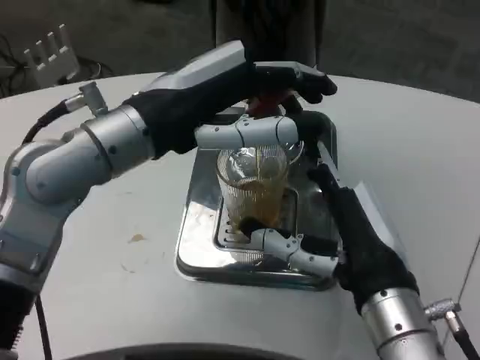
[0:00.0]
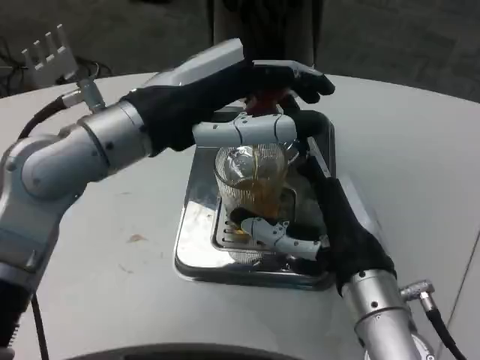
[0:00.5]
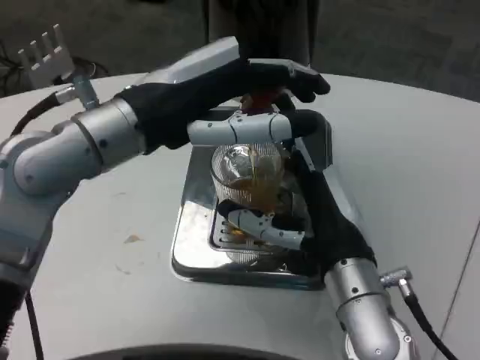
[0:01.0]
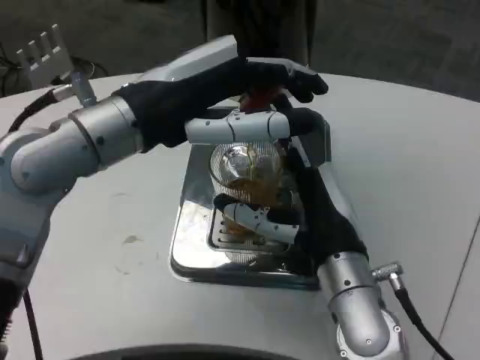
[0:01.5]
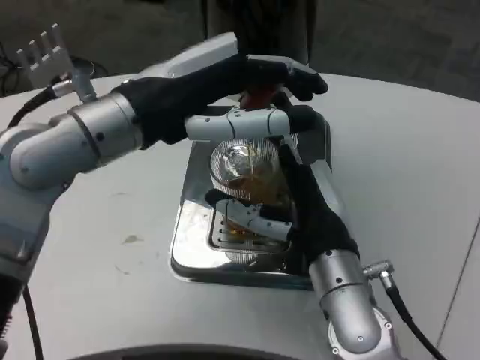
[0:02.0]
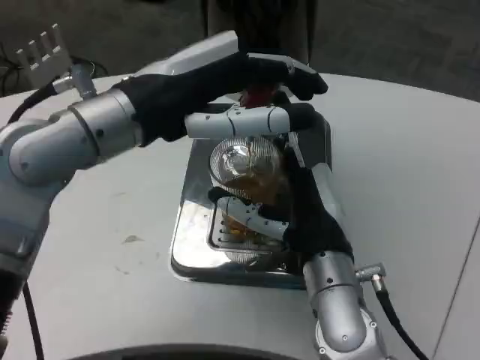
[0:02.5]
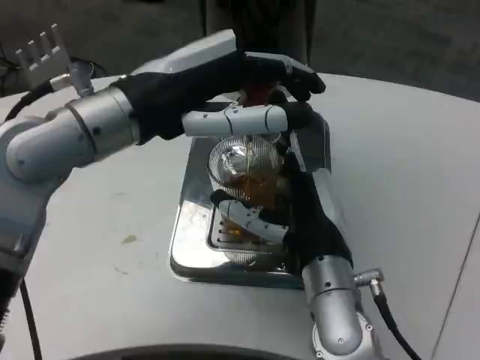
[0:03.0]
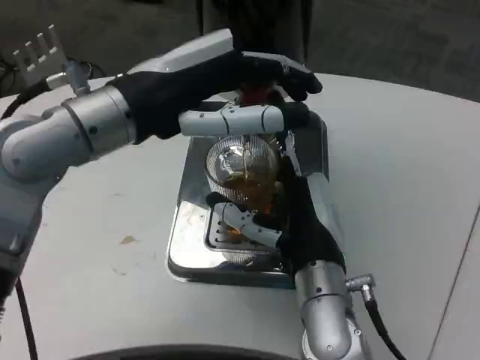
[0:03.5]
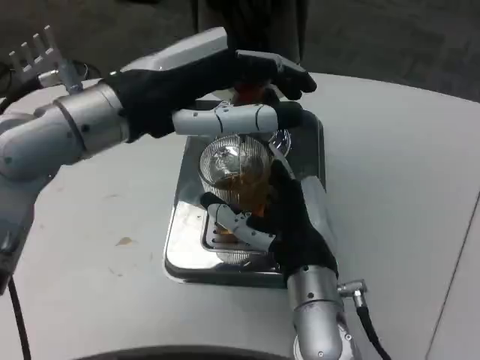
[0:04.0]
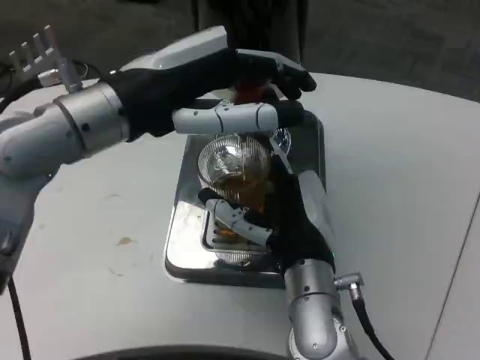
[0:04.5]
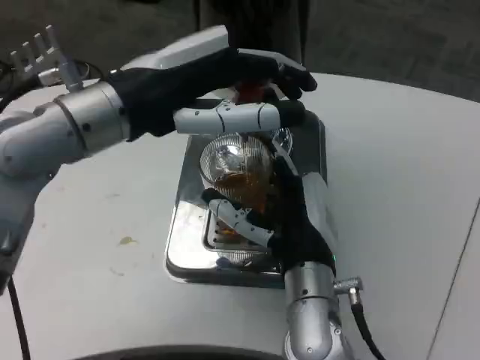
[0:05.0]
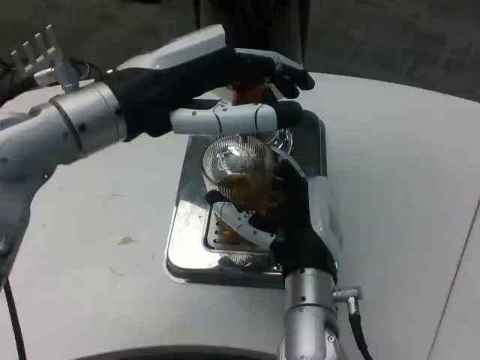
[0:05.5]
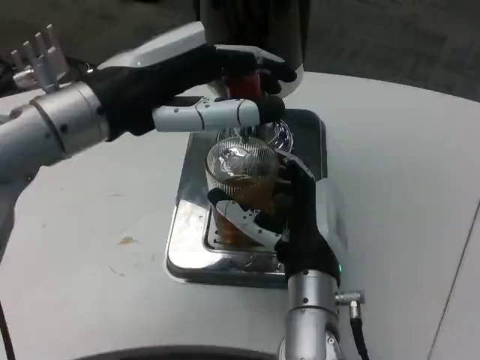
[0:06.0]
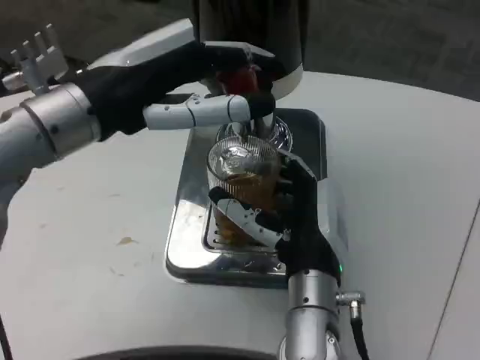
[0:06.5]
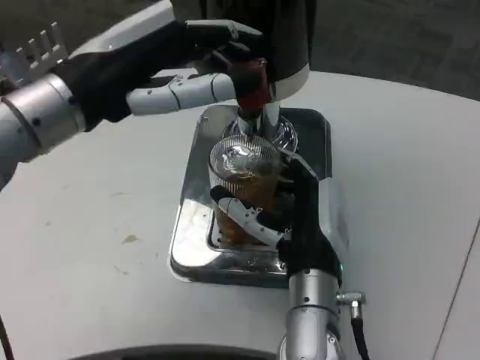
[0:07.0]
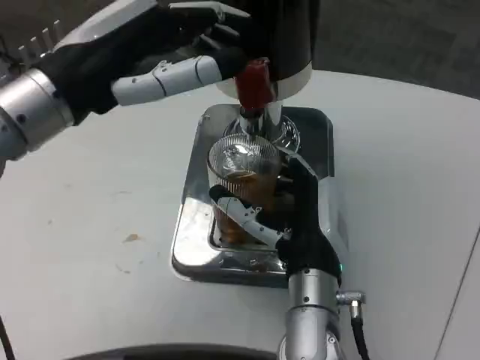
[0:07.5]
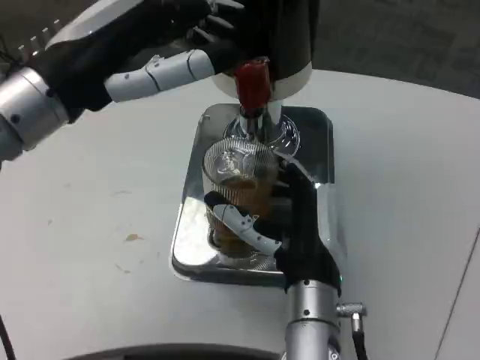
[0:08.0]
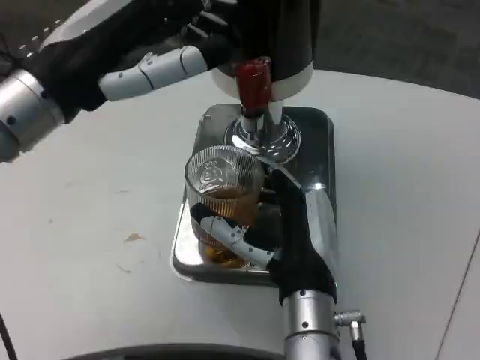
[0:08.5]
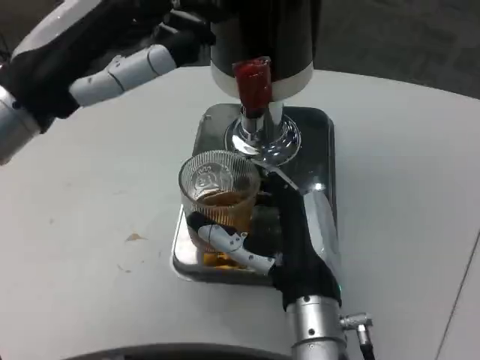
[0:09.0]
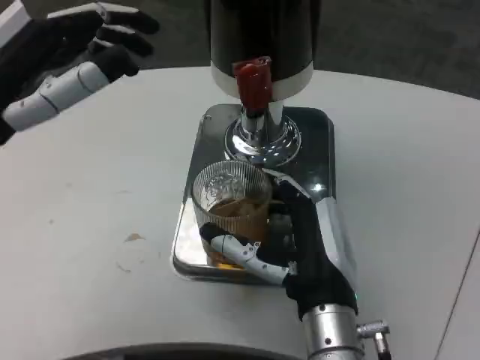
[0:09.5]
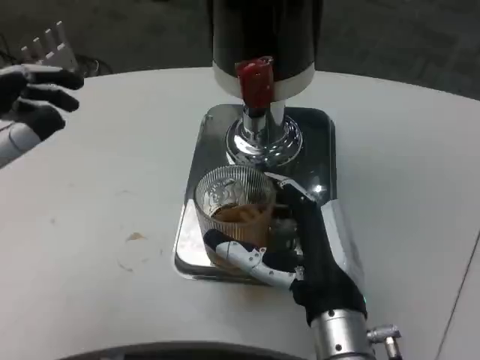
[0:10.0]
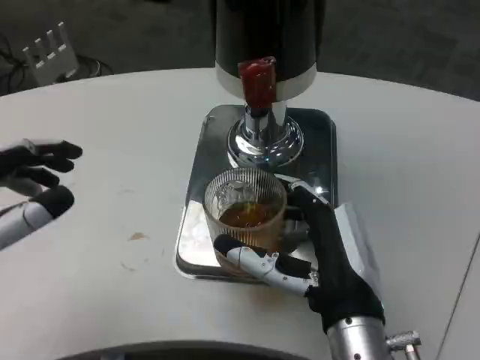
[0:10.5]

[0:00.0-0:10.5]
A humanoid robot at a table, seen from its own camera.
Task of the whole recording: Grasp the cup under the faucet to collect the drink, then remove the cup.
0:00.0 to 0:02.0: The right hand heads forward, covering roughly 5 cm.
0:08.5 to 0:10.5: The right hand changes place by approximately 5 cm. The left hand travels backward, downward and to the left by approximately 15 cm.

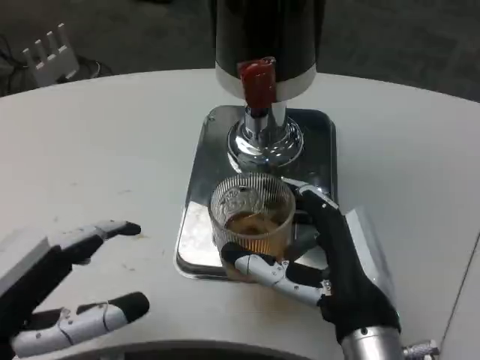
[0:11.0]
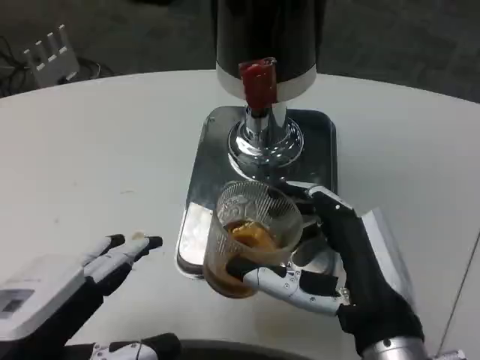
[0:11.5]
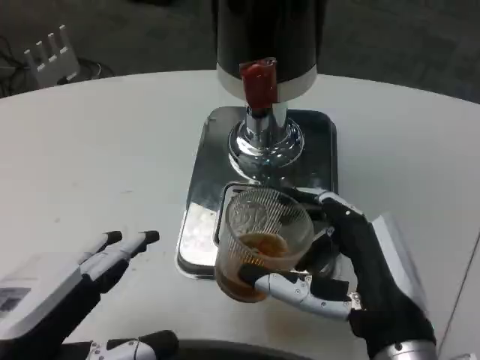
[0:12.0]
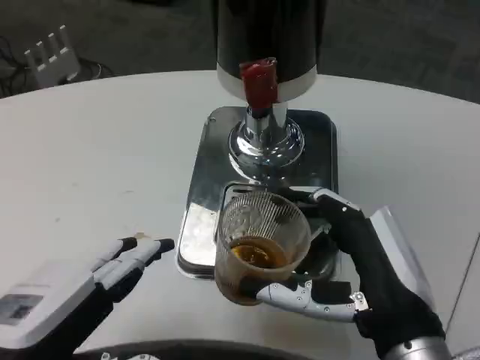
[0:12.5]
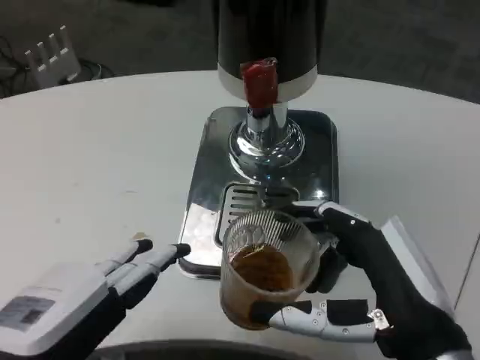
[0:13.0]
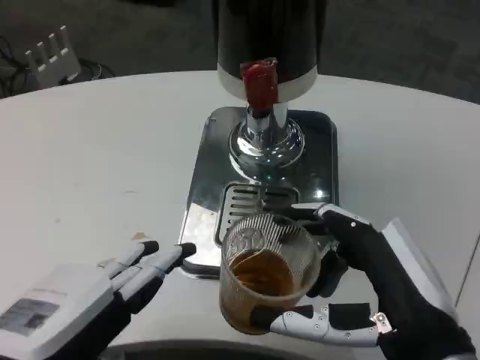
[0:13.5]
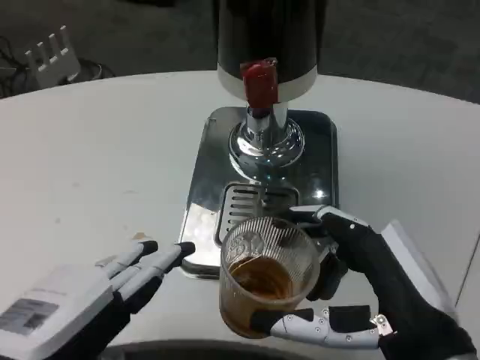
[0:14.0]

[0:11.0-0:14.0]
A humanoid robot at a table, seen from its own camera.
Task of the whole recording: Grasp the cup under the faucet to collect the drink, then remove the cup.
0:12.5 to 0:14.0: The hands move only a little.

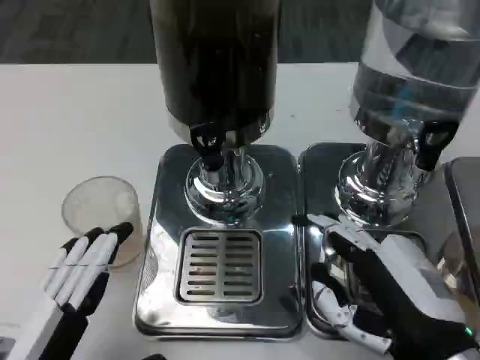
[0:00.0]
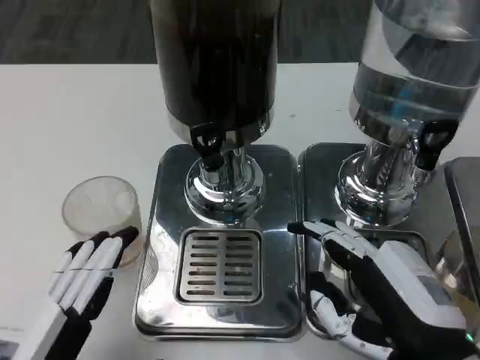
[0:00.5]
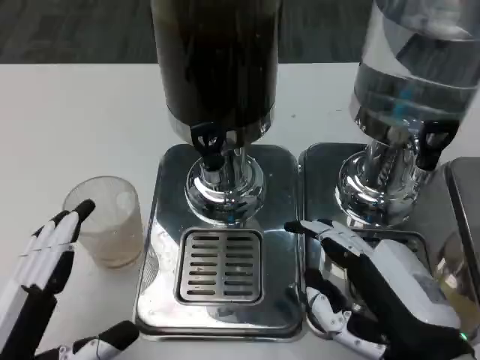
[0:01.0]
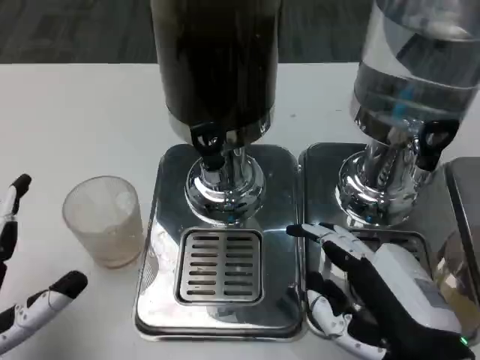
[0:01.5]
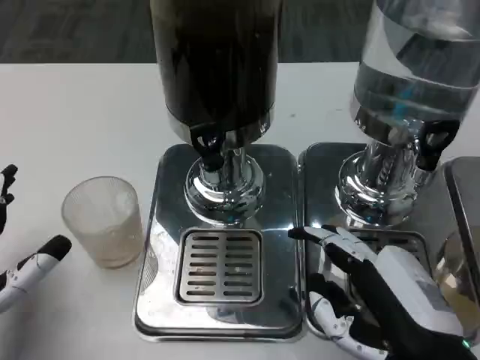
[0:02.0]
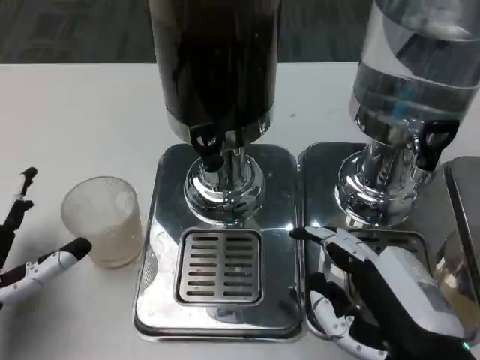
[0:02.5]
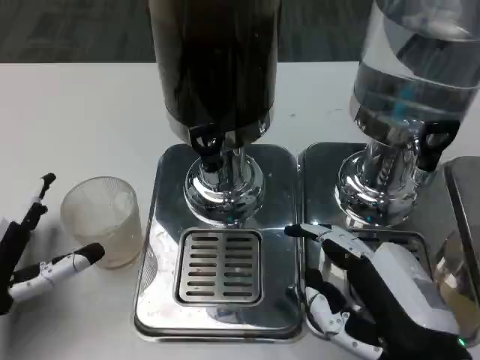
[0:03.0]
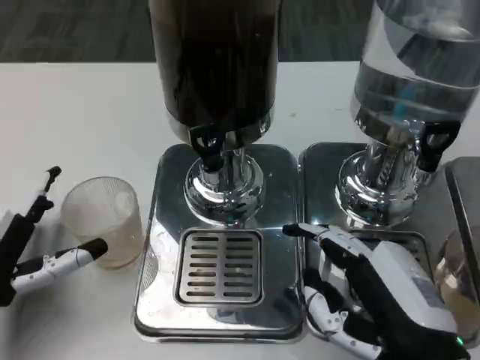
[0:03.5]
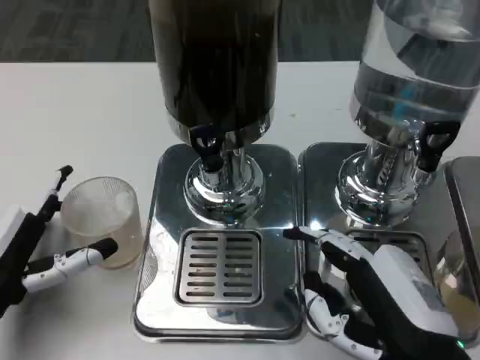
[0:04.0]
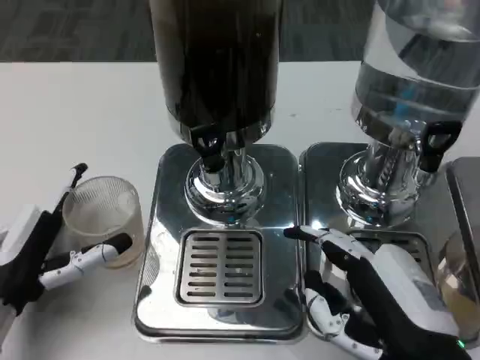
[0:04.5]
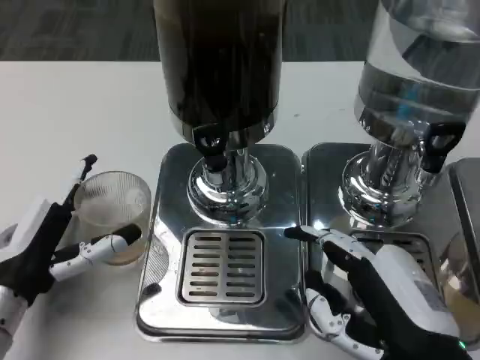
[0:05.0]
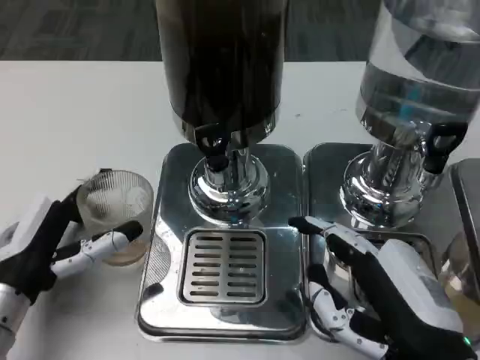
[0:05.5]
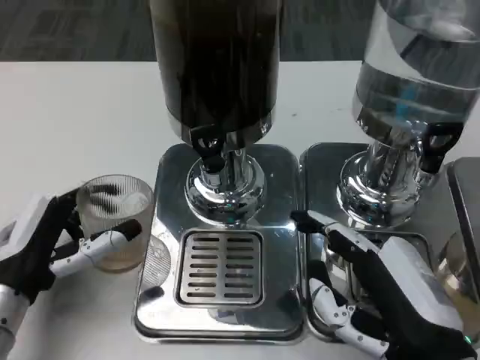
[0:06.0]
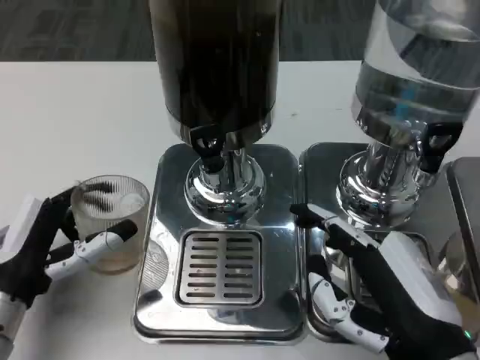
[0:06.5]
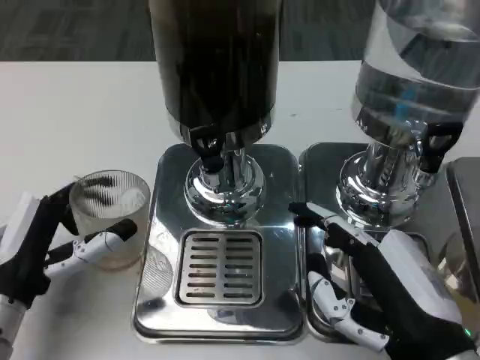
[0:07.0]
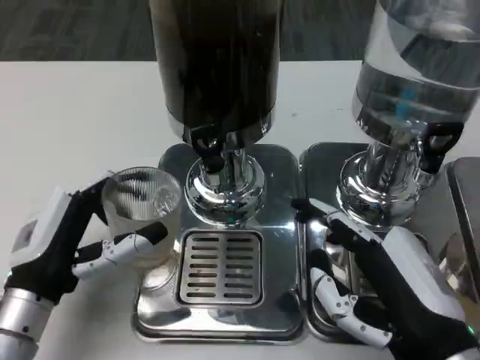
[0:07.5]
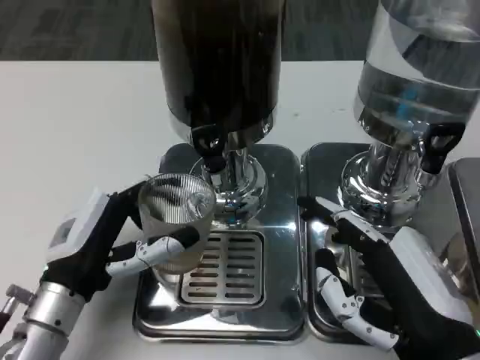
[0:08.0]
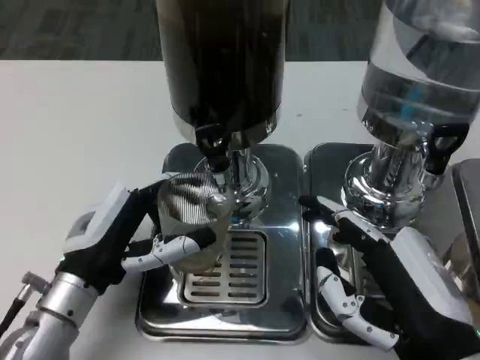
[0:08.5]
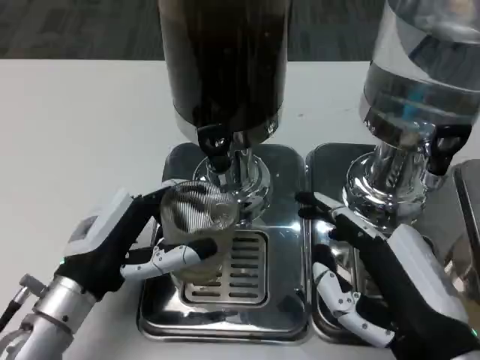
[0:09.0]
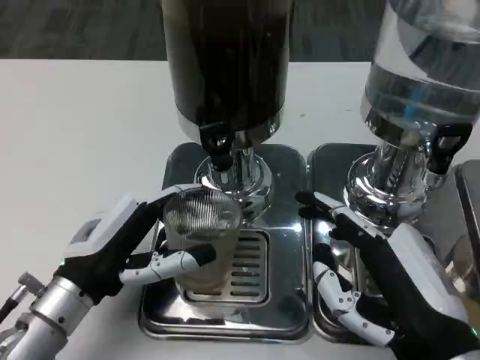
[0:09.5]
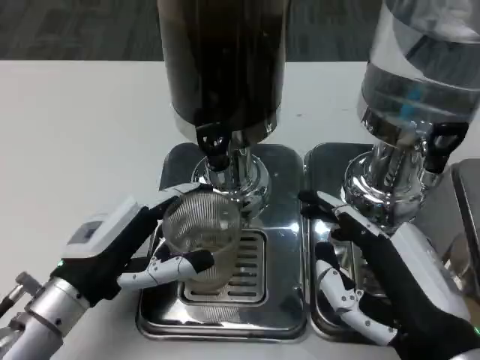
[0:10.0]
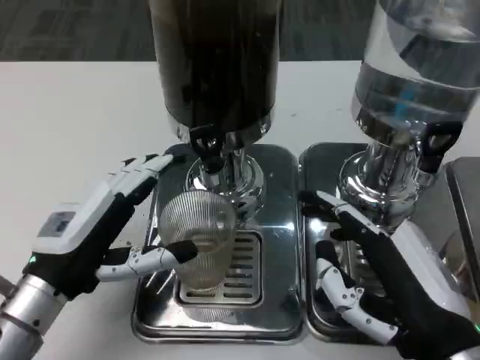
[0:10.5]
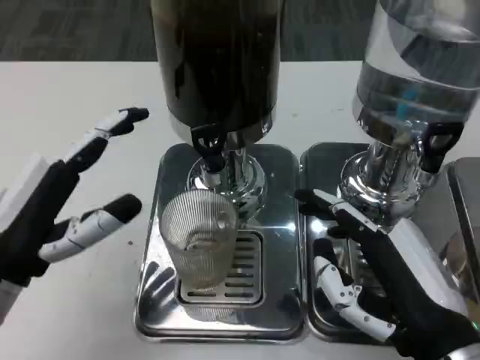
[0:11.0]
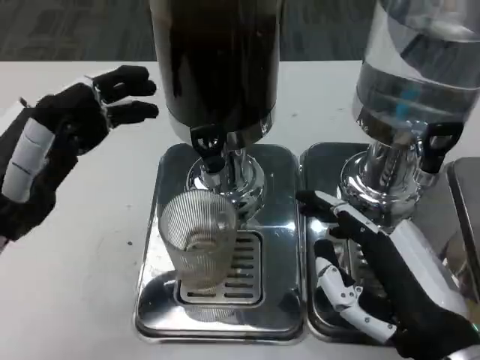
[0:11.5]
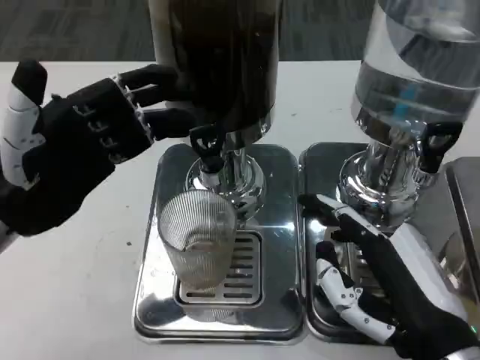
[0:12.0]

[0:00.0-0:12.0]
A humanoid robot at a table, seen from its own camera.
Task of the whole recording: Grasp the cup under the faucet to collect the drink, then remove the cup.
0:00.0 to 0:02.0: The left hand goes roughly 10 cm forward and to the left.
0:02.0 to 0:04.0: The hands make only small movements.
0:10.0 to 0:12.0: The left hand heads upward, covering approximately 10 cm.
